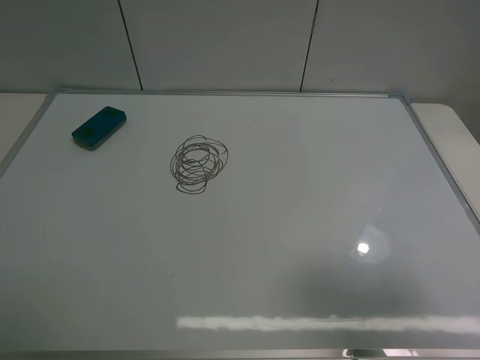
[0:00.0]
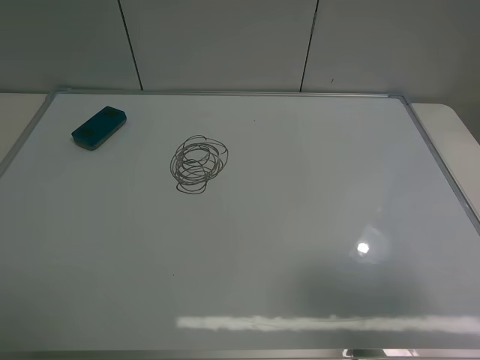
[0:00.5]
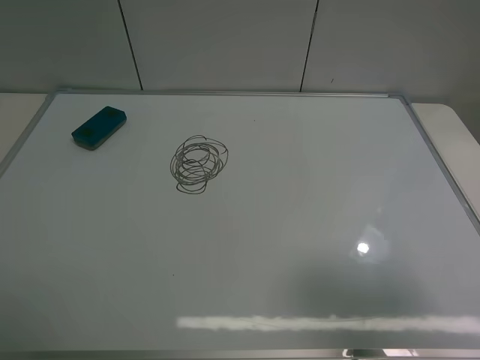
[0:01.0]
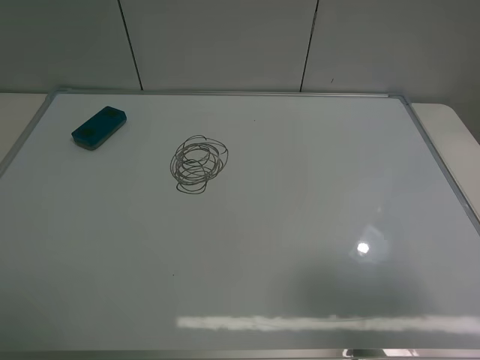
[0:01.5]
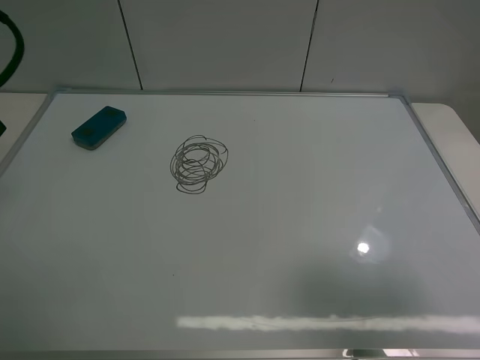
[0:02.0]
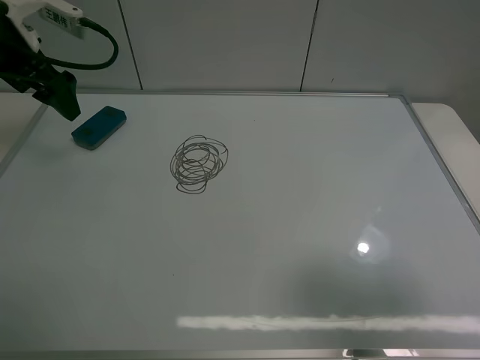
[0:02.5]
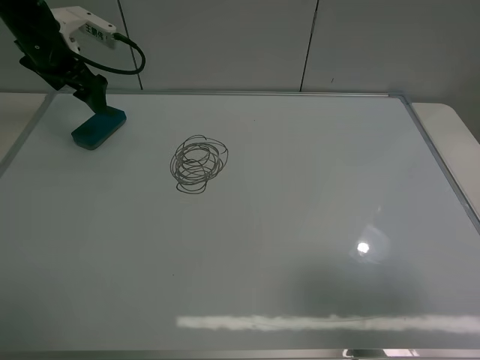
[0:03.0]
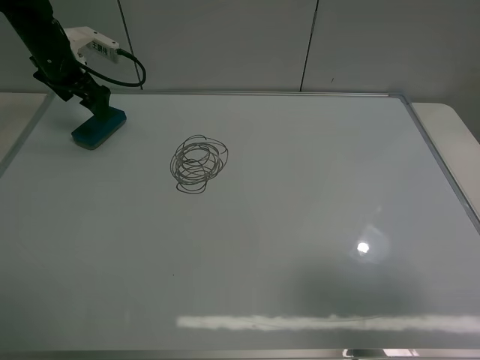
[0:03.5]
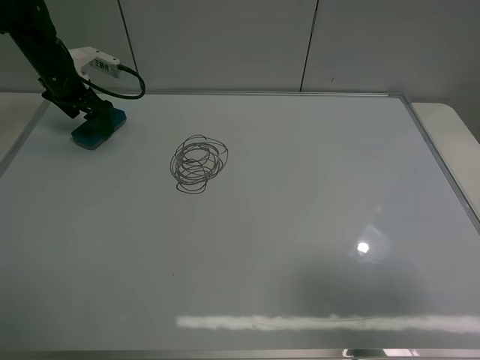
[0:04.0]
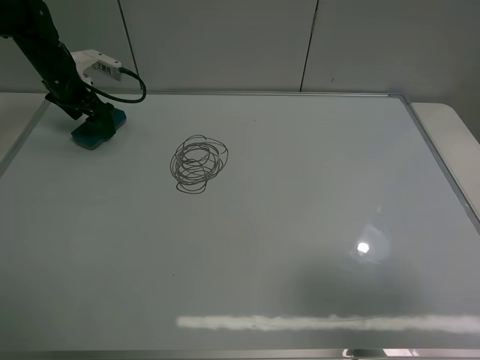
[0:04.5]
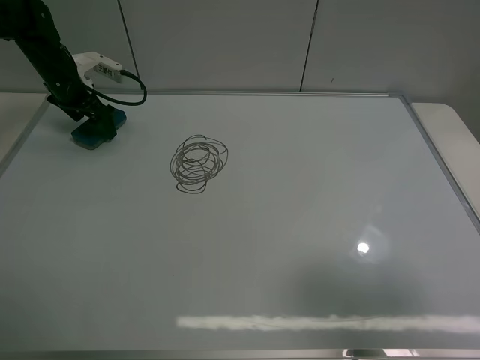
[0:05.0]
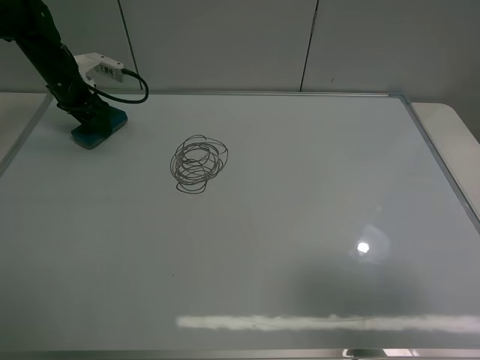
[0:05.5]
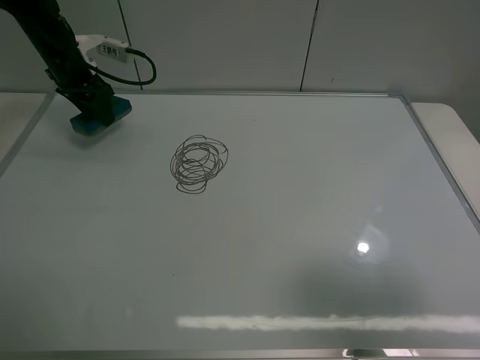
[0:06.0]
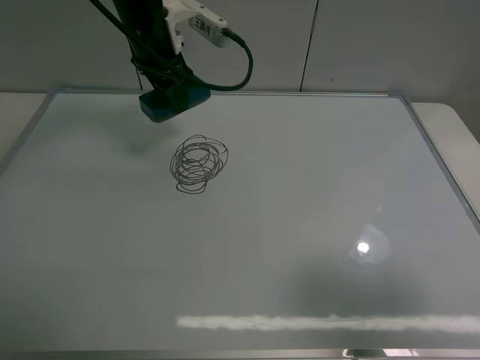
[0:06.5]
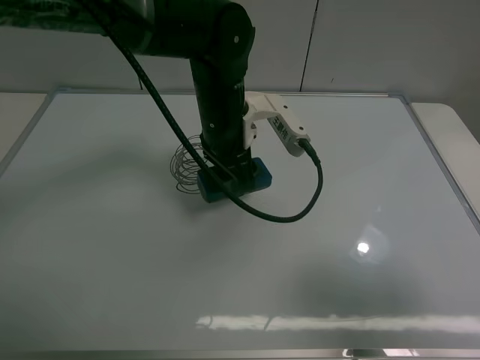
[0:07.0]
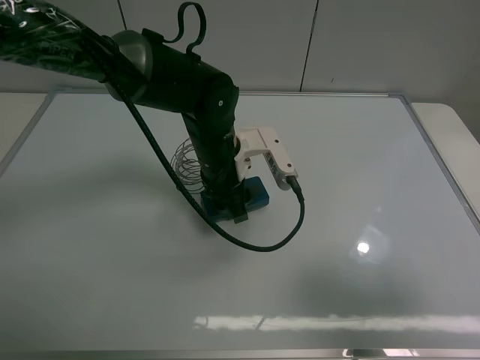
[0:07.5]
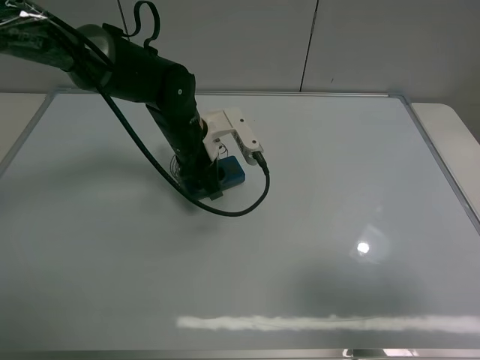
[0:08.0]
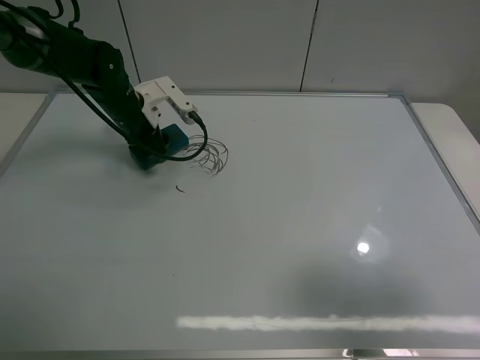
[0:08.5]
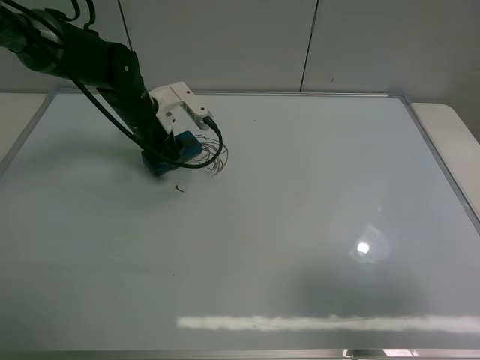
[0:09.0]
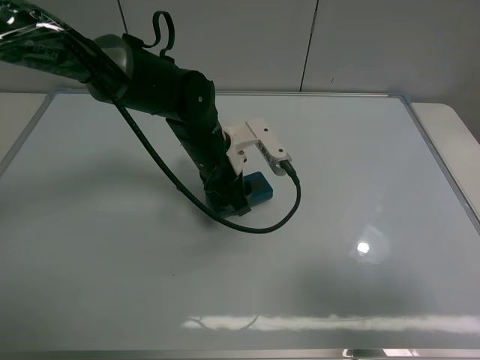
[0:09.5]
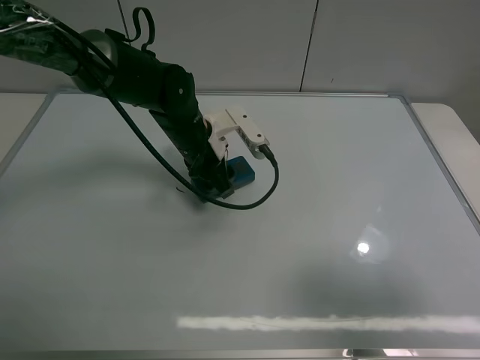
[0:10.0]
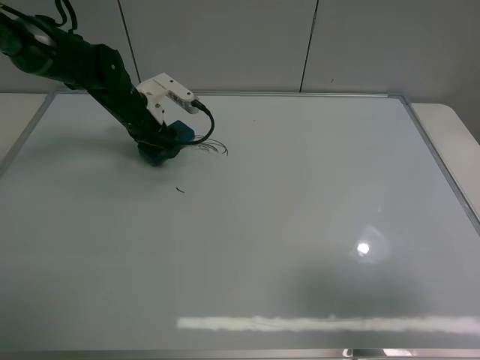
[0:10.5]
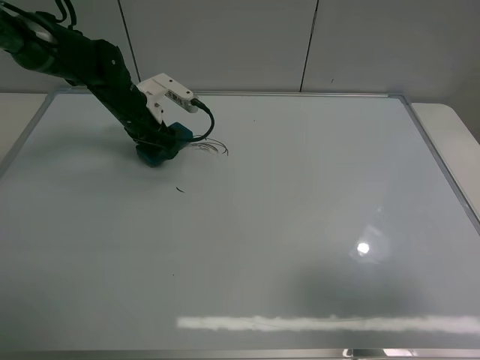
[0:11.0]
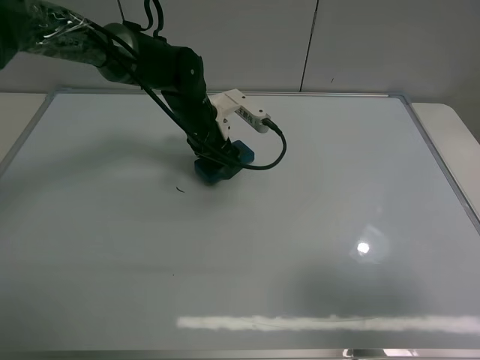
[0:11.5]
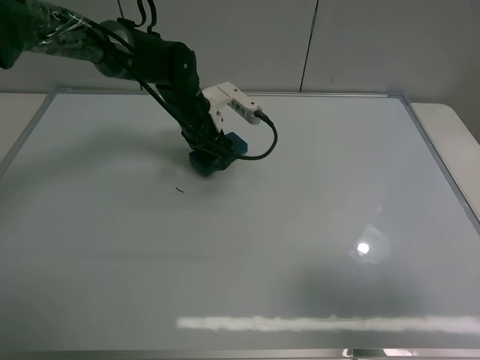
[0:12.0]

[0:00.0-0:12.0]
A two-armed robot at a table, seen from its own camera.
Task of the whole recording: use the left claw to pick up the whiteboard eraser, wipe the notes on the whiteboard clean, and then put them back in place.
Step, 0:00.0 to 0:05.5: Grasp the eraser with the left gripper.
0:02.0 to 0:04.0: The left gripper goes approximately 30 cm forward and downward.
0:04.0 to 0:06.0: The left gripper closes.
0:06.0 to 0:08.0: The left gripper goes about 25 cm to the right and backward.
0:08.0 to 0:10.0: The left gripper goes left and right, roughly 15 cm each way, reversing 2 times.
0:10.0 to 0:12.0: The left gripper goes roughly 5 cm forward, and moves roughly 10 cm to the left and comes back.

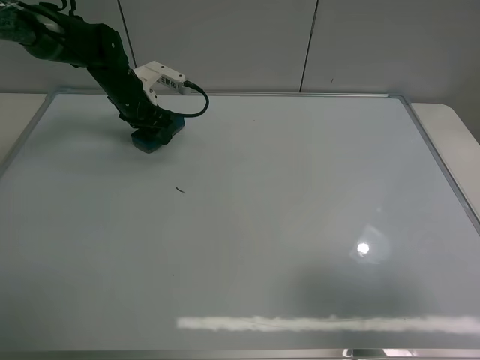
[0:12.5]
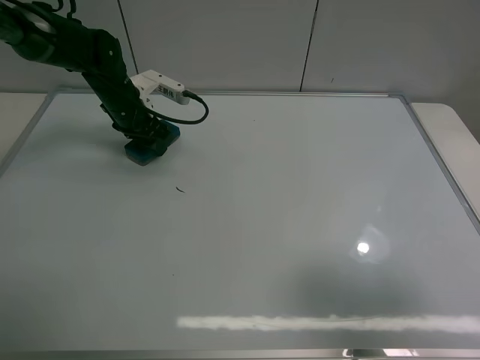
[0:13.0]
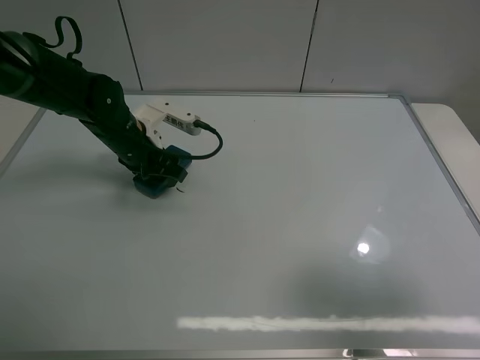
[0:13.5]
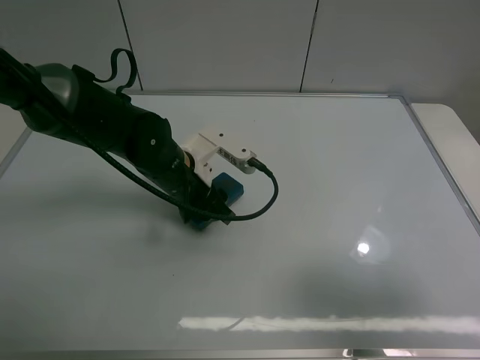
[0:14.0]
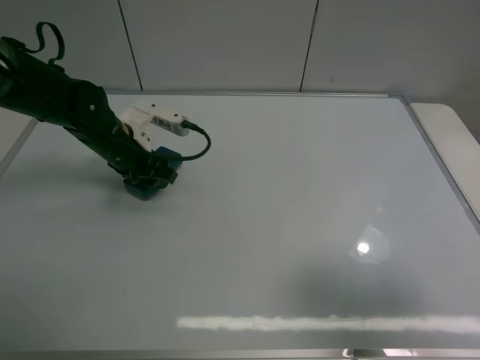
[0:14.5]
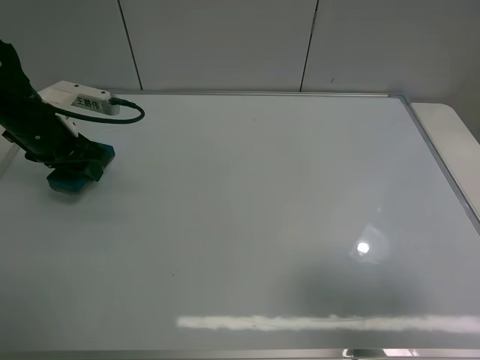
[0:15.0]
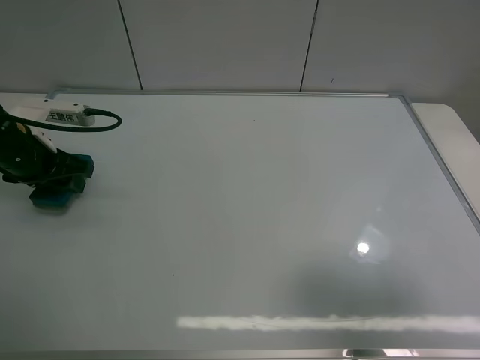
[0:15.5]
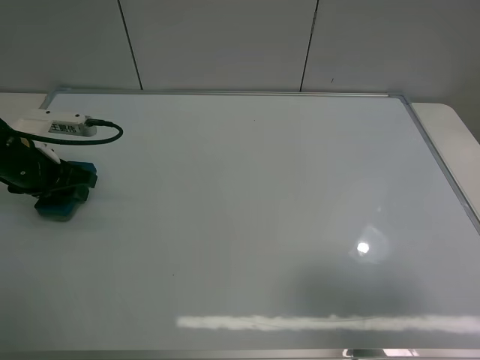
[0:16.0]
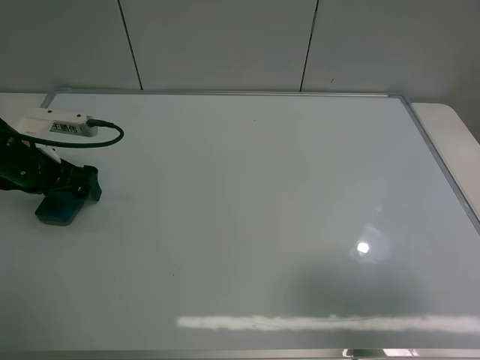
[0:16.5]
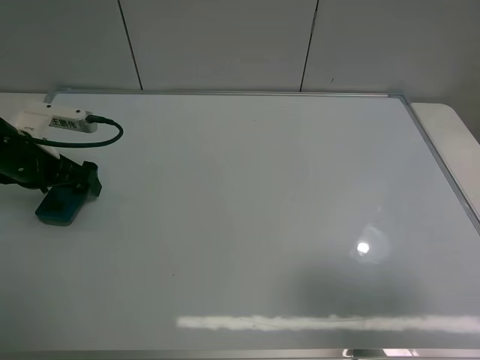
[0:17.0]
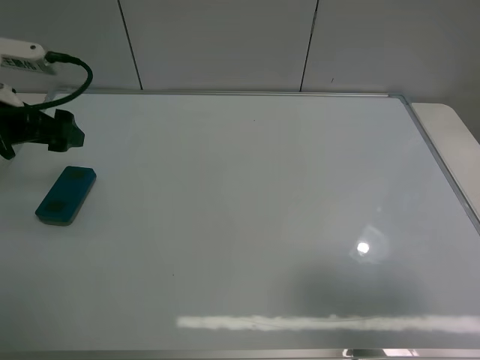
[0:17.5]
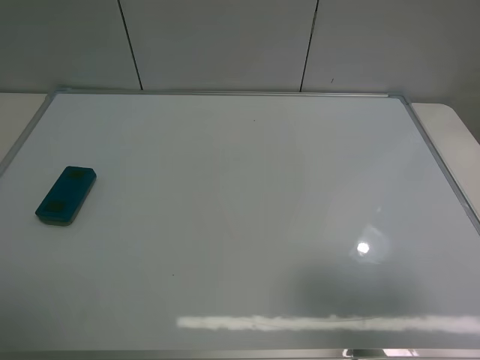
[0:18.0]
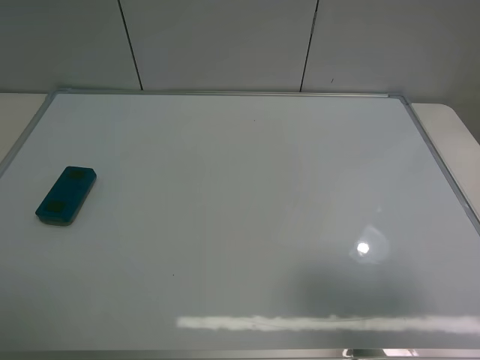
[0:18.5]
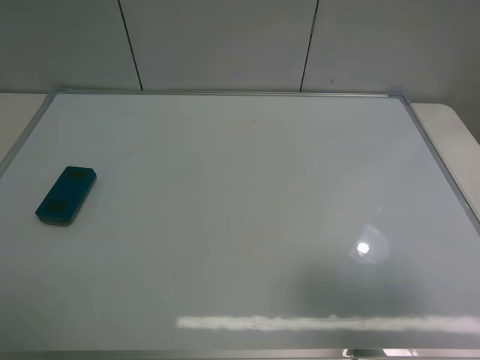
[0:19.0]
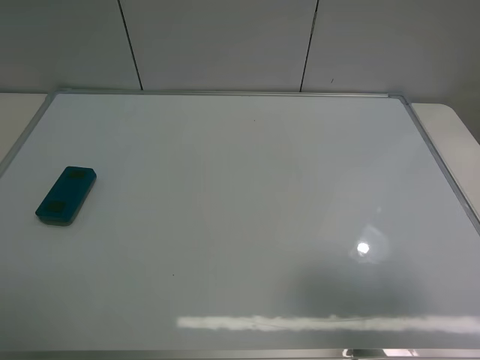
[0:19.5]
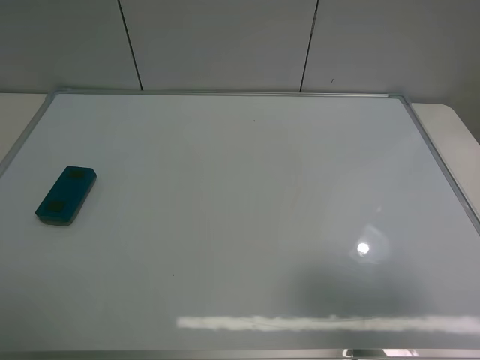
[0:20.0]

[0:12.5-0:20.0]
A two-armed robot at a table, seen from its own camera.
Task of the whole recording: use the left claw to pick up the whiteboard eraser, wipe the notes on the whiteboard clean, and then put them back in place.
Step, 0:12.5 to 0:14.5: Grasp the eraser and wipe the blackboard with the left gripper.
Step, 0:15.0 to 0:17.0: Place the eraser with the left gripper.
0:12.5 to 0:14.5: The left gripper shifts roughly 15 cm backward.
0:14.5 to 0:16.5: The left gripper goes about 10 cm to the left and backward, and opens.
0:16.5 to 0:18.0: The left gripper moves upward and backward, approximately 25 cm.
